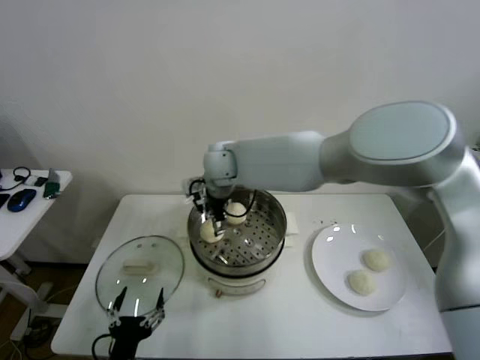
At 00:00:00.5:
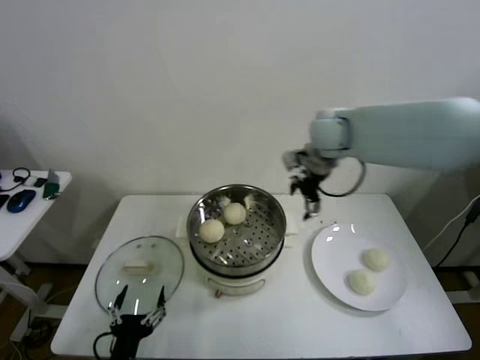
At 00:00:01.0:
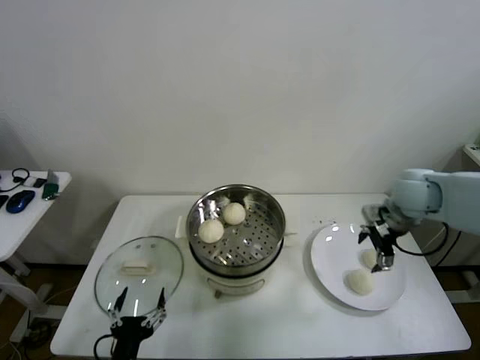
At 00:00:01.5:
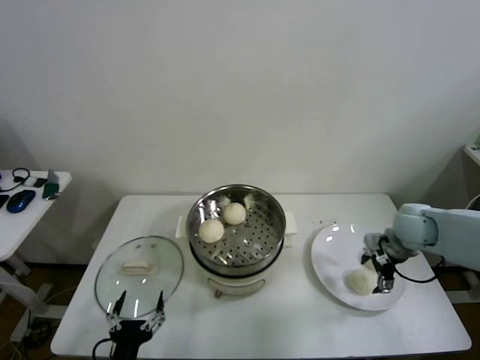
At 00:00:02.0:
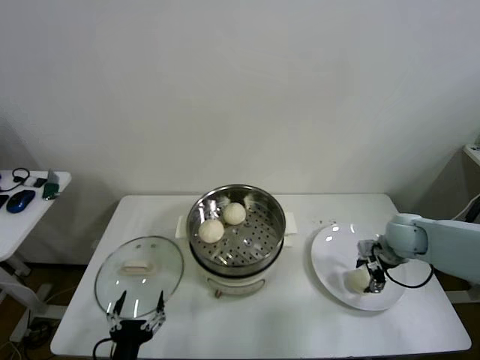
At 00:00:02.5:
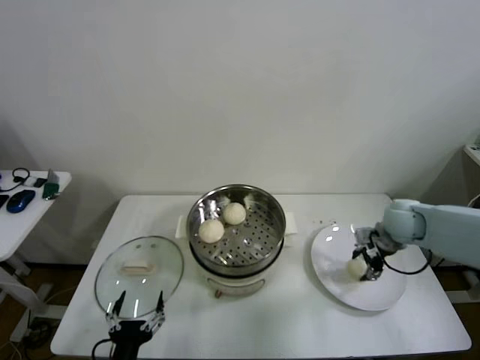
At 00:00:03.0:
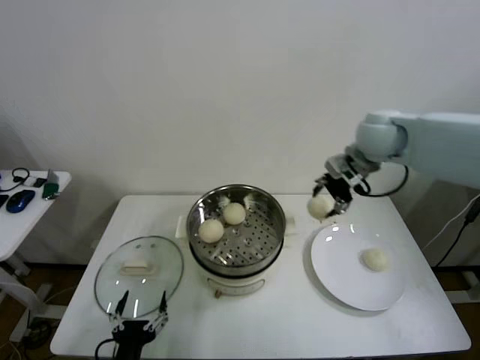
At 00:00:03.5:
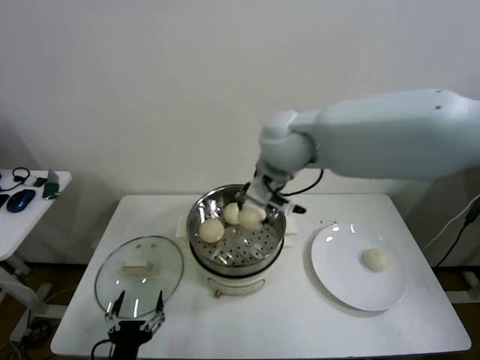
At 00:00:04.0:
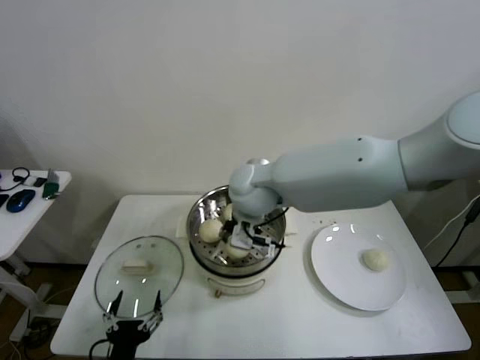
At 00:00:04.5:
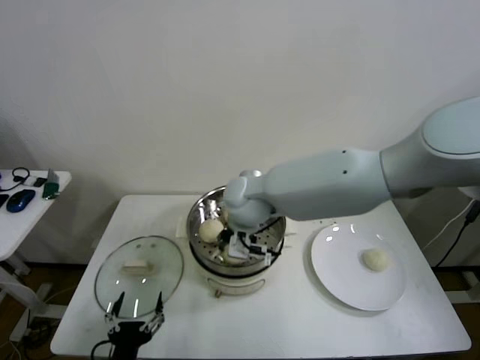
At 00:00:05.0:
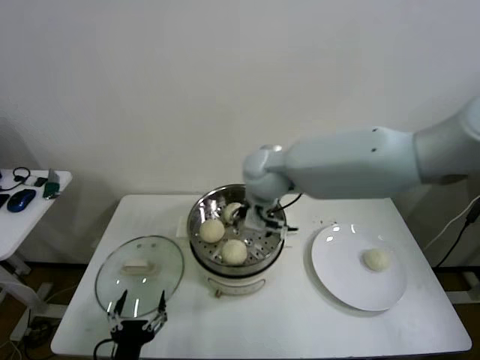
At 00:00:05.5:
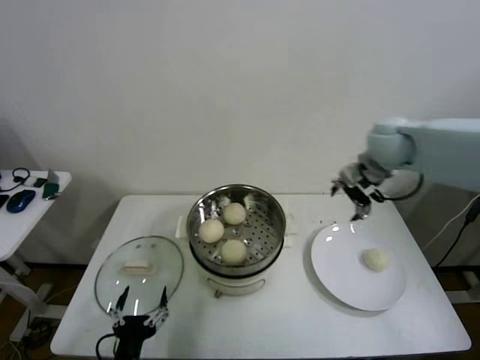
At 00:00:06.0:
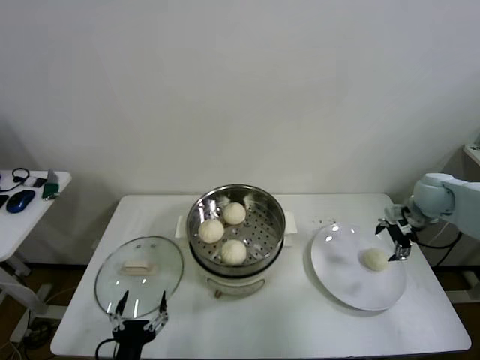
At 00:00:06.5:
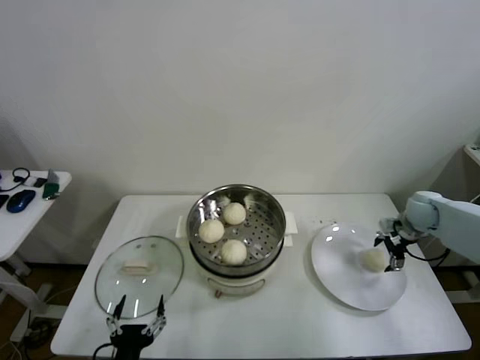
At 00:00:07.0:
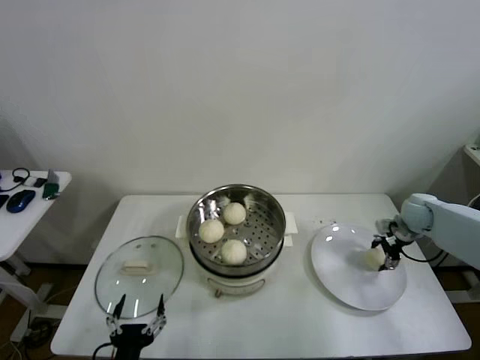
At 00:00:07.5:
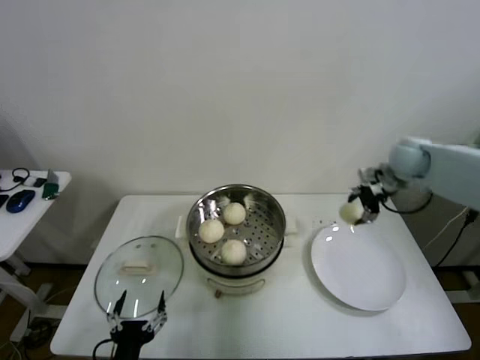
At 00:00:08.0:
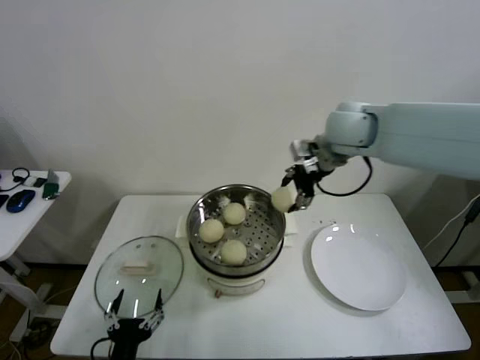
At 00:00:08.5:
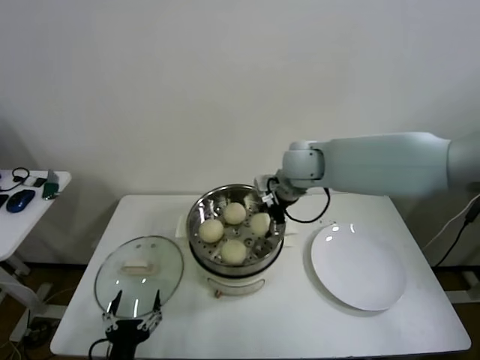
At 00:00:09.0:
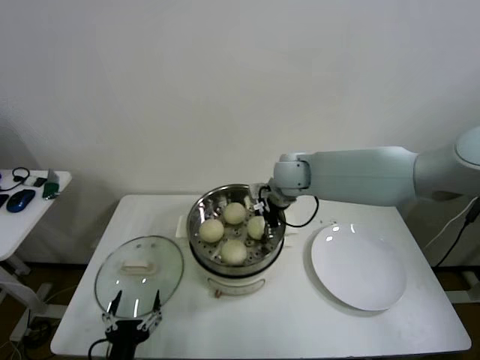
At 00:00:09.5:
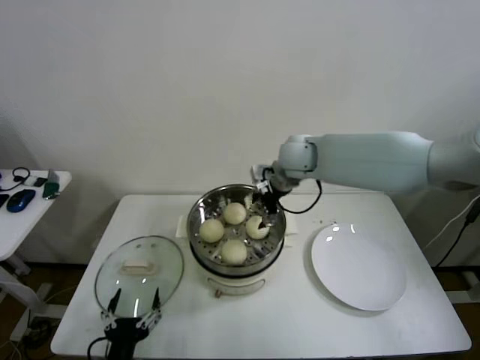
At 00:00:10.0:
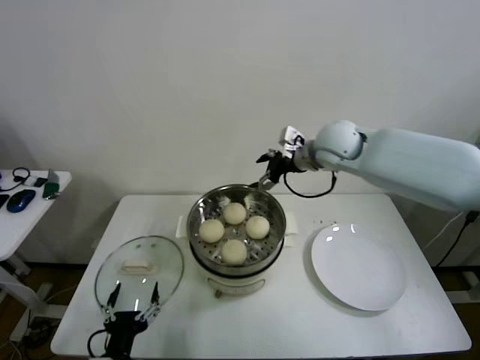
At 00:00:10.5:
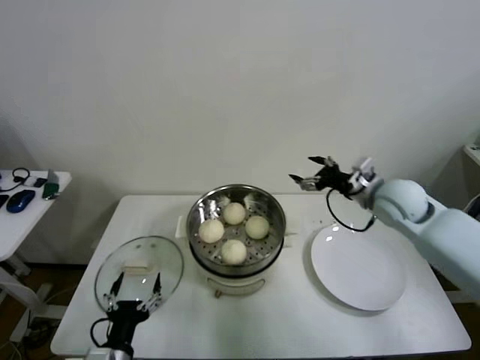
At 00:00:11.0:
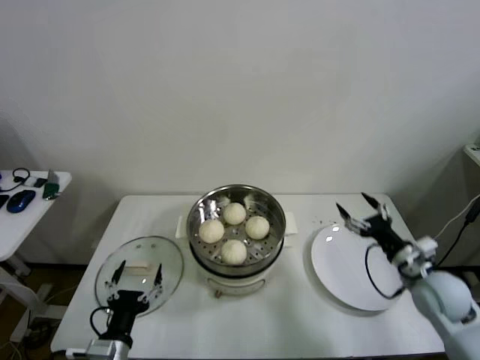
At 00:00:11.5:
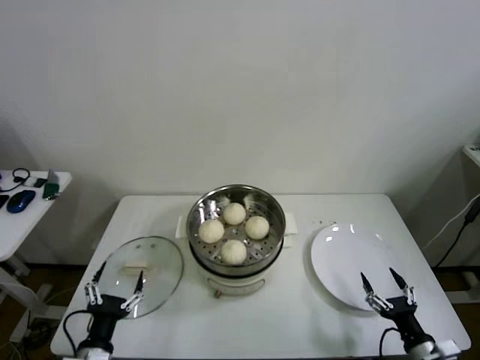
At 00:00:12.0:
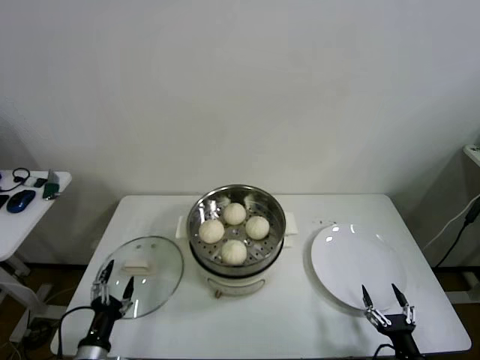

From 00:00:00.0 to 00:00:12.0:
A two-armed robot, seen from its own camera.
Step, from 00:00:00.0 to 00:00:02.0: Grasp the baozi in the plate with right gripper.
Step, from 00:00:02.5 to 00:00:04.5: Place the baozi on the steamer with right gripper.
Step, from 00:00:05.0 to 00:00:06.5: Grasp the baozi in the plate with right gripper.
Step, from 00:00:07.0 to 00:00:09.0: Place the baozi on the steamer with right gripper.
From 00:00:00.0 to 00:00:02.0: The right gripper is displaced to the right by approximately 40 cm, and closes its fingers.
From 00:00:02.0 to 00:00:04.0: The right gripper goes approximately 40 cm to the left and upward.
From 00:00:04.0 to 00:00:06.0: The right gripper shifts about 40 cm to the right, and opens up.
From 00:00:06.0 to 00:00:08.0: The right gripper heads to the left and upward, covering some 30 cm, and closes up.
From 00:00:08.0 to 00:00:10.0: The right gripper opens.
From 00:00:10.0 to 00:00:12.0: The left gripper heads to the left and downward, covering approximately 10 cm; the right gripper goes about 60 cm backward, downward and to the right.

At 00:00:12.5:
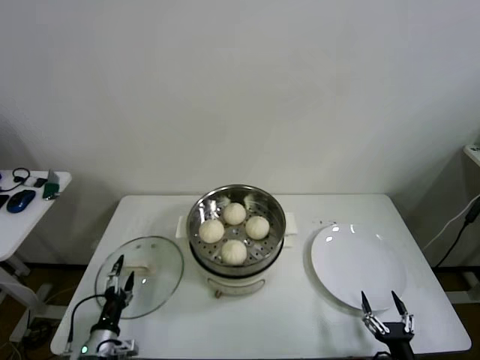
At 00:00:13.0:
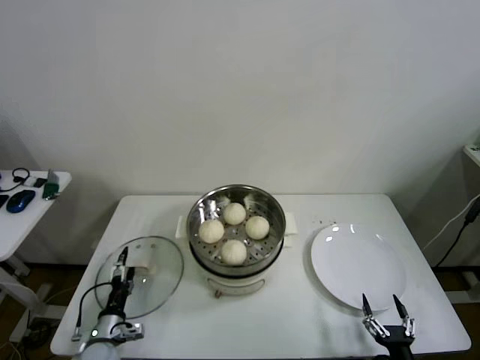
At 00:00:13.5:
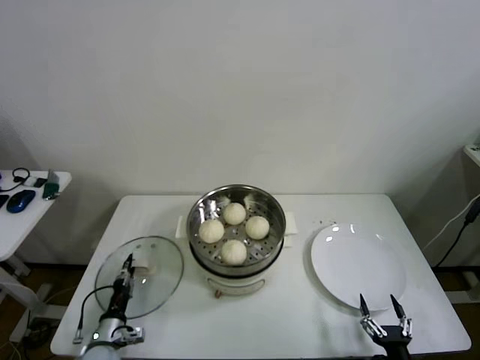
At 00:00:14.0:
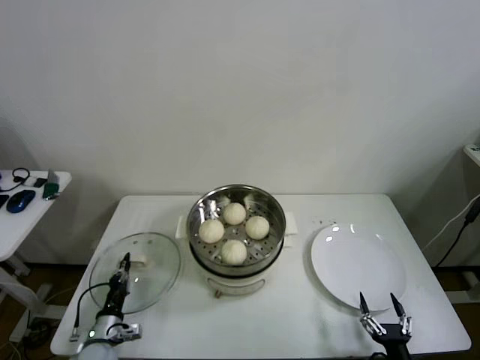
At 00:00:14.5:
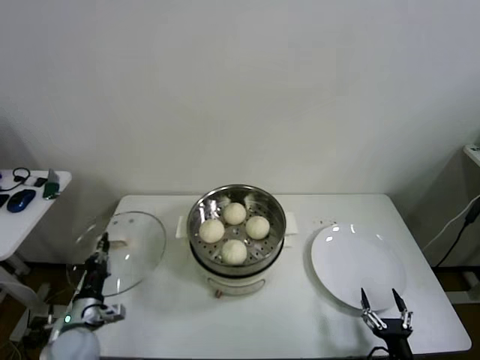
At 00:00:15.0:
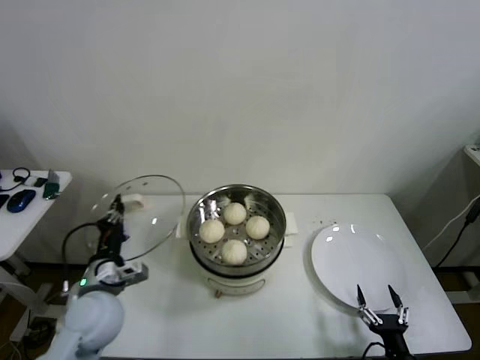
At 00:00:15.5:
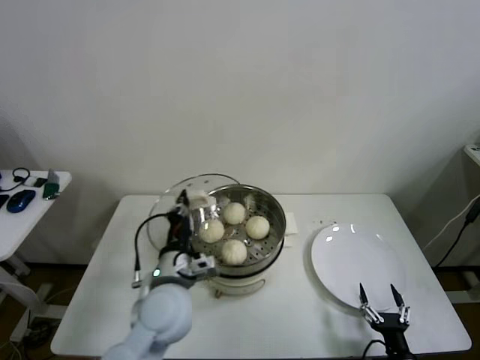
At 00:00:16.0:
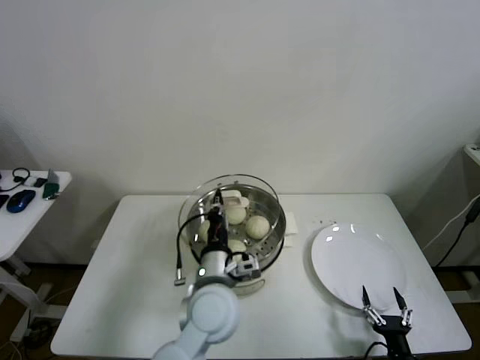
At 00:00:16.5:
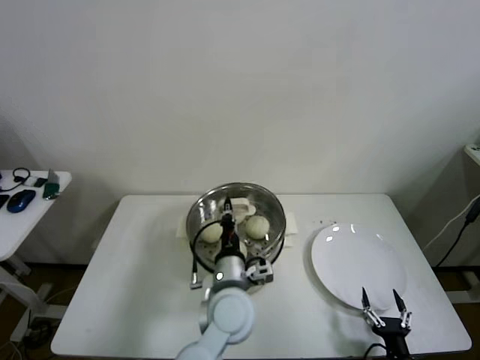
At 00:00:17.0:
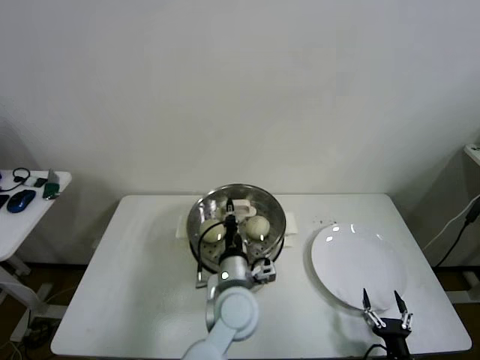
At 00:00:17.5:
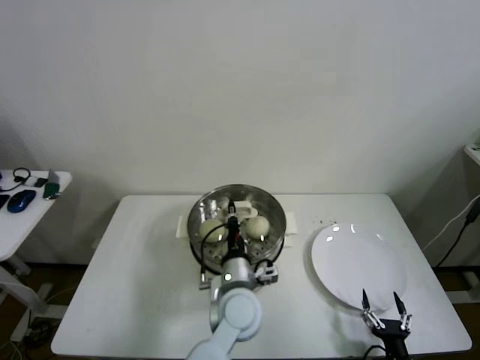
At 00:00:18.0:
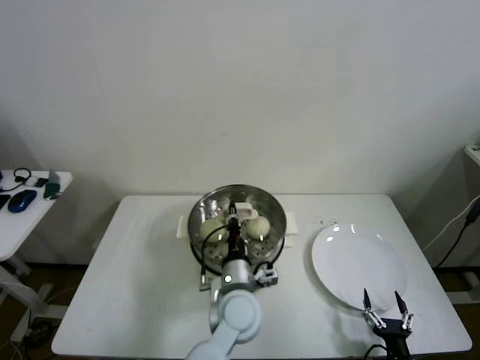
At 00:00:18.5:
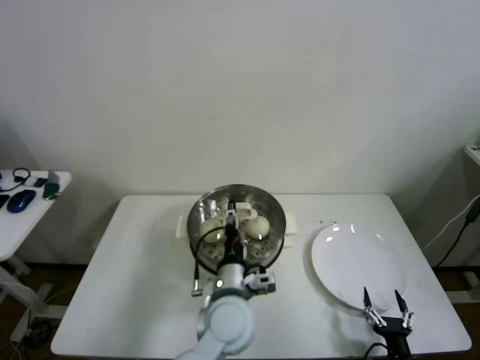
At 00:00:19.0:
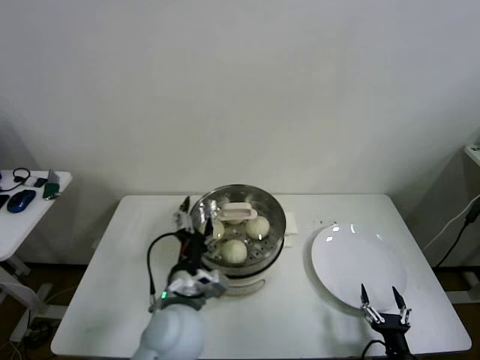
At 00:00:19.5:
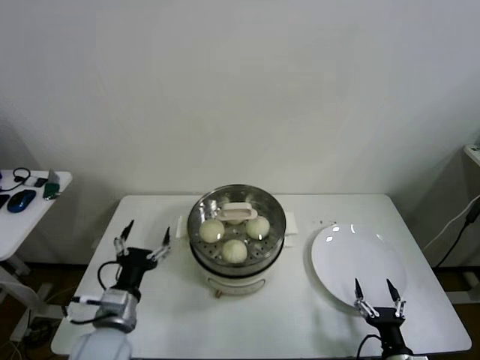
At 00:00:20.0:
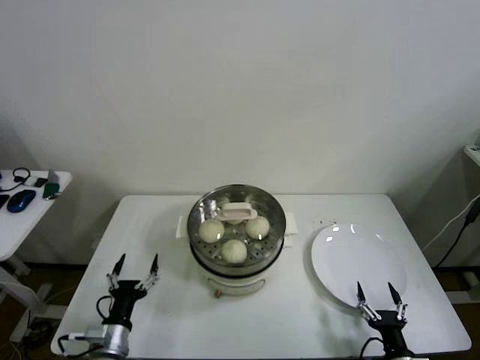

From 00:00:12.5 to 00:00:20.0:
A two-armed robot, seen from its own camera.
Step, from 00:00:14.0 to 00:00:18.0: Place the pot lid on the steamer with left gripper.
From 00:00:12.5 to 00:00:14.5: The left gripper travels forward by some 5 cm, and closes.
From 00:00:14.5 to 00:00:16.5: The left gripper is displaced to the right and upward by about 35 cm.
From 00:00:16.5 to 00:00:18.0: The grippers make only small movements.
From 00:00:18.0 to 00:00:20.0: The left gripper travels to the left by roughly 30 cm, and opens its fingers.
